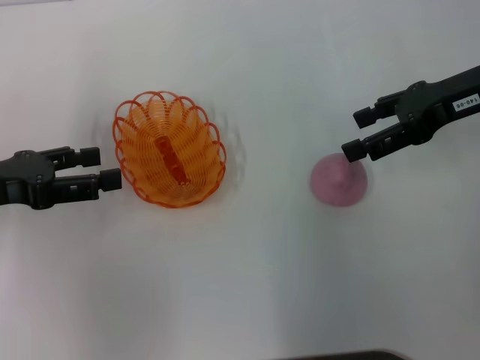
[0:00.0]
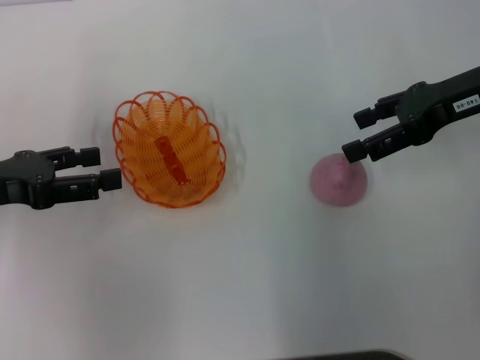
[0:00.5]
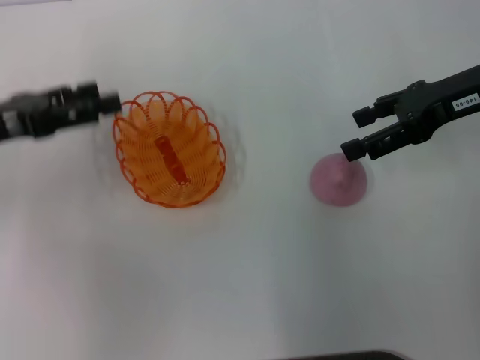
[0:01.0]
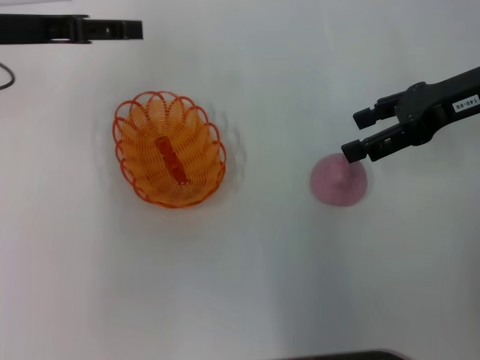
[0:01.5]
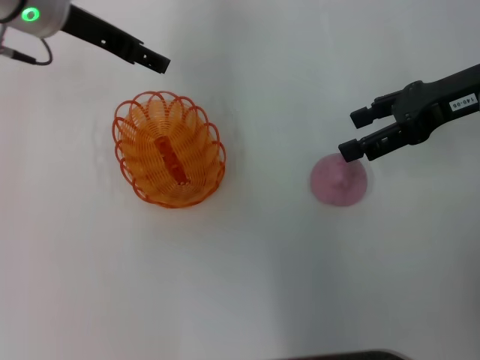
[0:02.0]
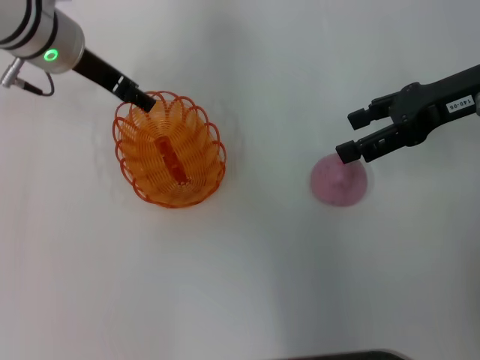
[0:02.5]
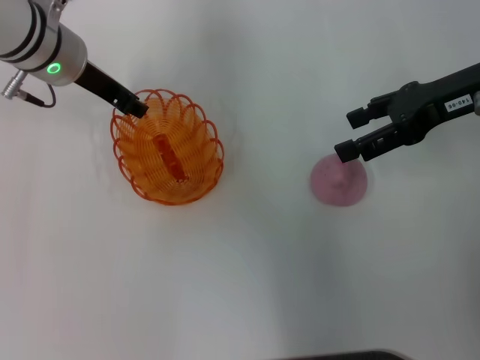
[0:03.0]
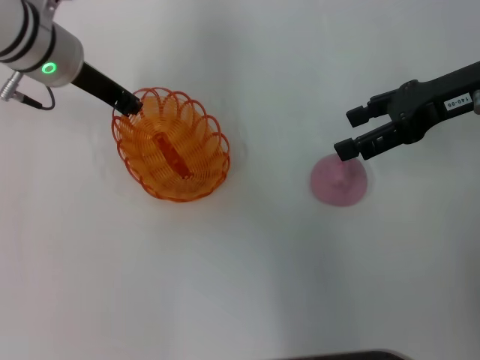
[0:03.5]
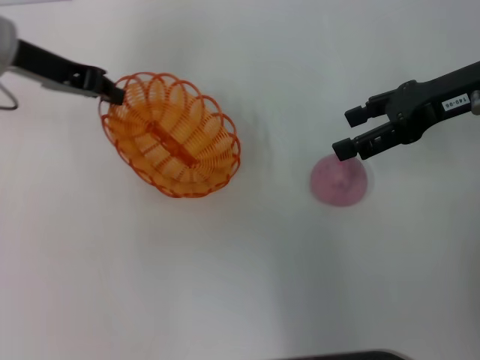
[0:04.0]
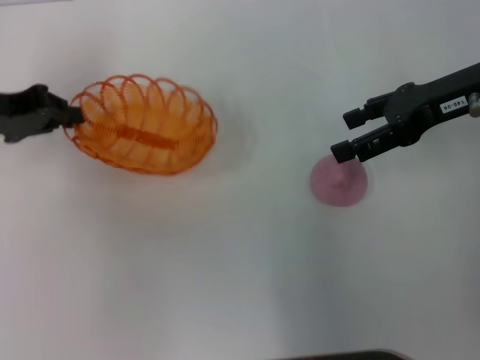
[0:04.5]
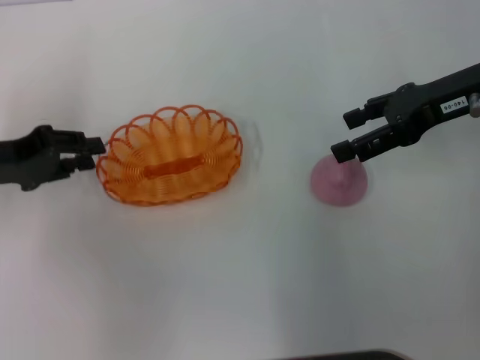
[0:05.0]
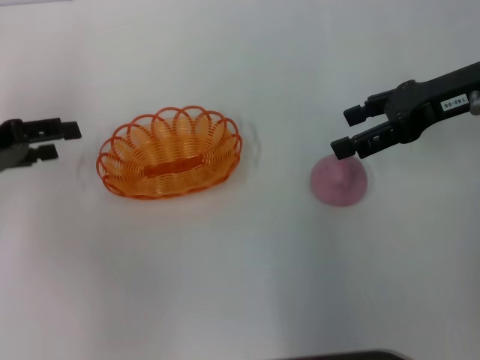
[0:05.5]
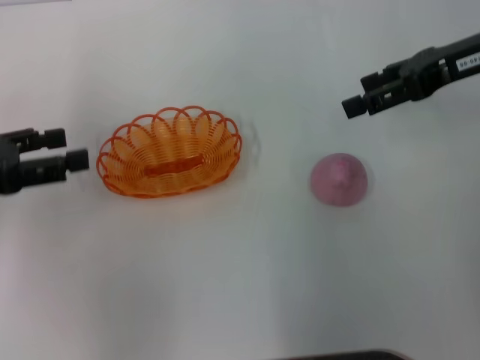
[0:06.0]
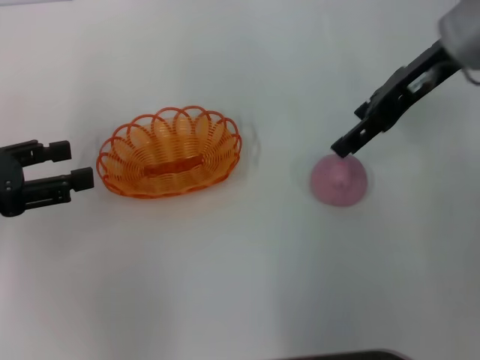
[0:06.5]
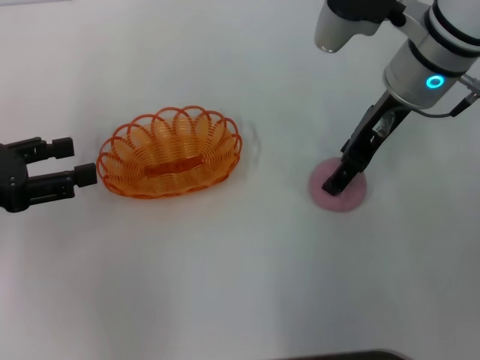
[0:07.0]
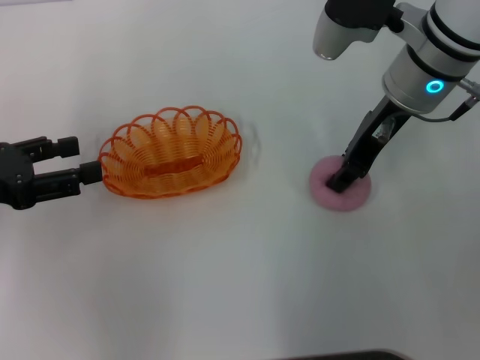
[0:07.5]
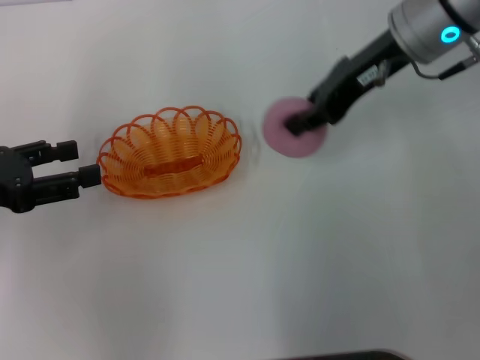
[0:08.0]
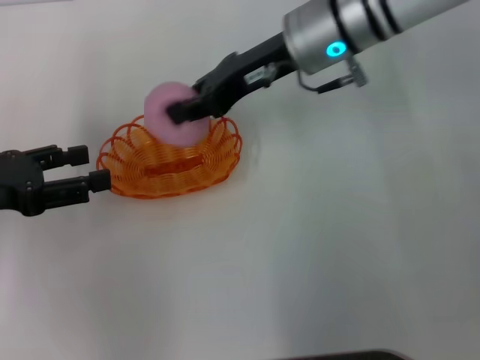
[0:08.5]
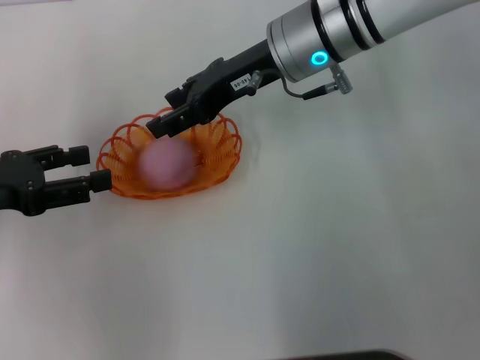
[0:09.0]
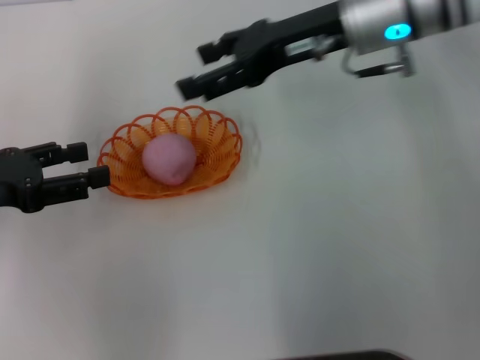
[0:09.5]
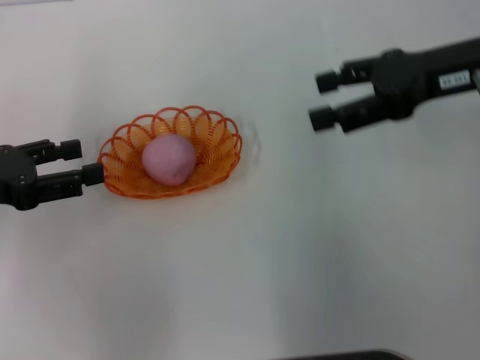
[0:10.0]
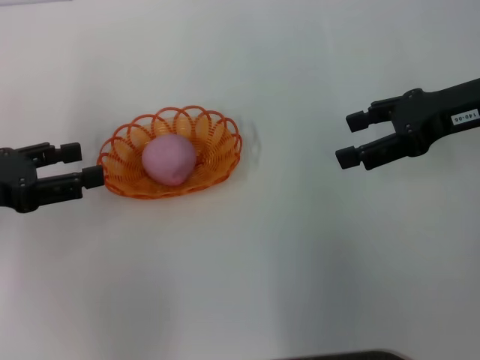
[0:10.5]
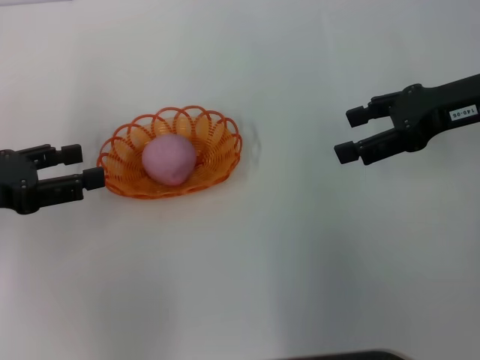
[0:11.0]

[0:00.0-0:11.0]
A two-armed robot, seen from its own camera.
Step, 0:00.0 to 0:03.5: Pick up the basket with the left gripper.
Step, 0:04.0 to 0:05.0: Place the basket in the center of view with the left gripper.
Step, 0:05.5 to 0:07.5: Pick up the peach with the right gripper.
Step, 0:08.5 to 0:09.0: Place the peach into the basket with the right gripper.
0:00.0 to 0:02.0: The left gripper heads forward, to the right and upward, covering some 20 cm.
0:02.0 to 0:03.5: The left gripper goes roughly 5 cm downward, and closes.
0:03.5 to 0:05.5: The left gripper moves to the left and backward, about 20 cm, and opens its fingers.
0:05.5 to 0:07.5: The left gripper goes some 5 cm backward. Meanwhile the right gripper moves to the left, roughly 10 cm, and closes its fingers.
0:07.5 to 0:09.0: The right gripper is displaced to the left by about 10 cm, and closes and opens again.
0:09.0 to 0:11.0: The right gripper heads to the right, covering some 20 cm, and opens its fingers.

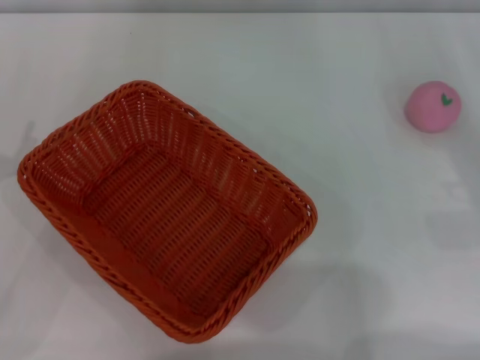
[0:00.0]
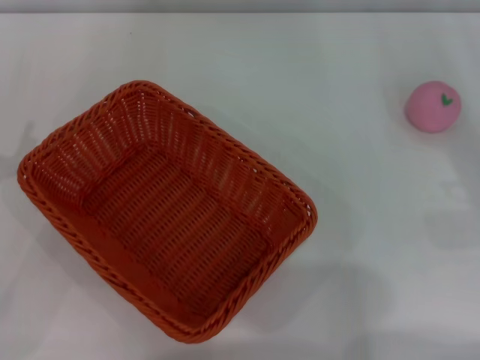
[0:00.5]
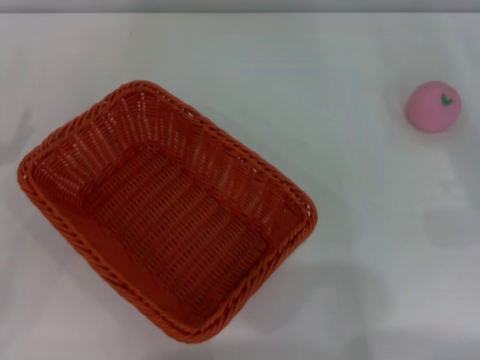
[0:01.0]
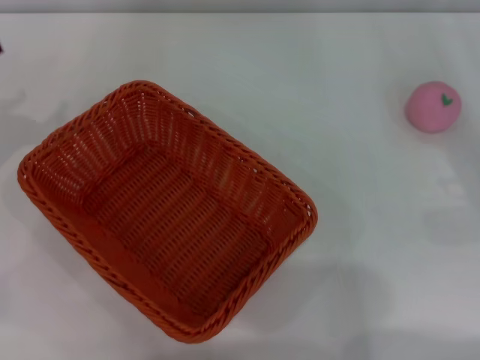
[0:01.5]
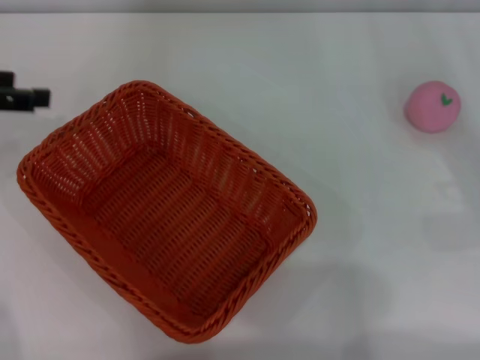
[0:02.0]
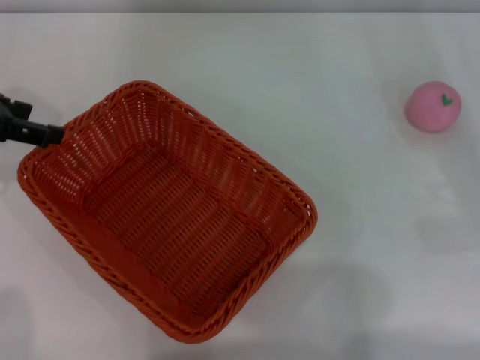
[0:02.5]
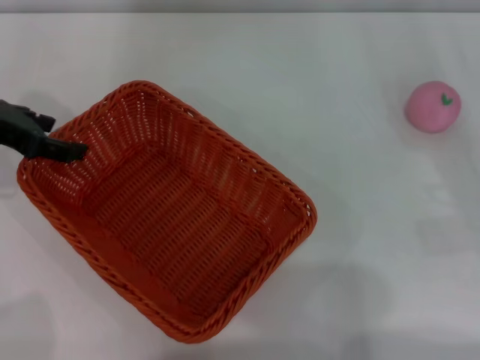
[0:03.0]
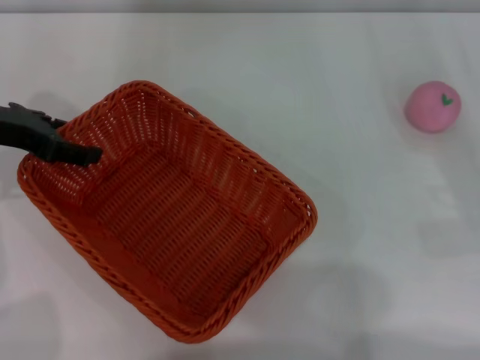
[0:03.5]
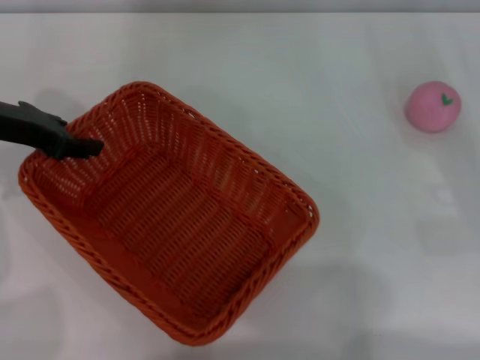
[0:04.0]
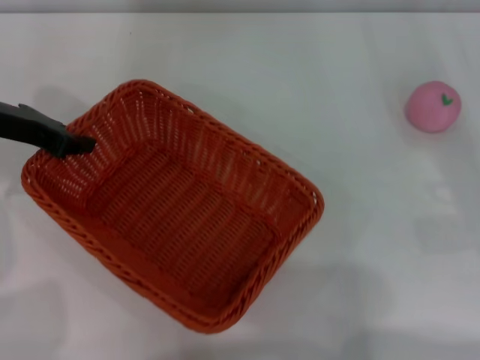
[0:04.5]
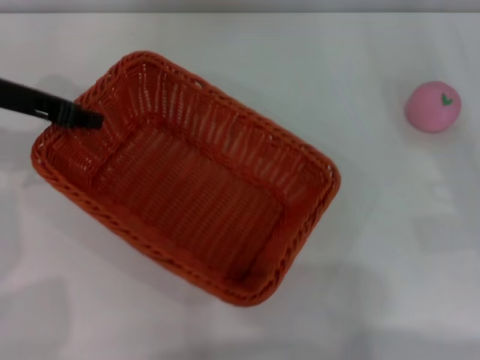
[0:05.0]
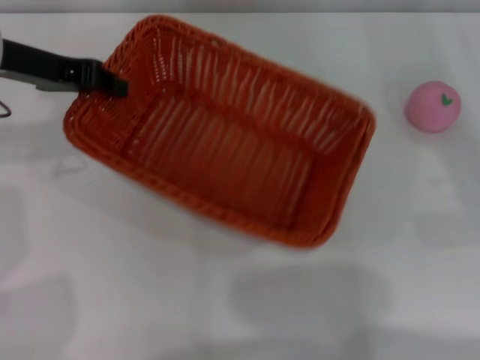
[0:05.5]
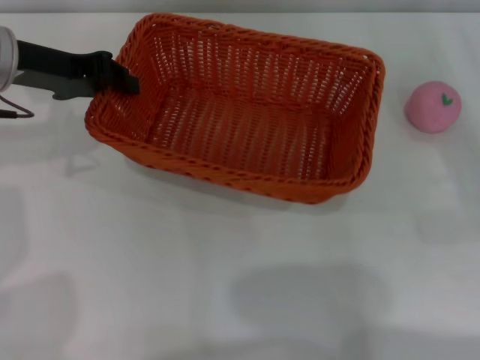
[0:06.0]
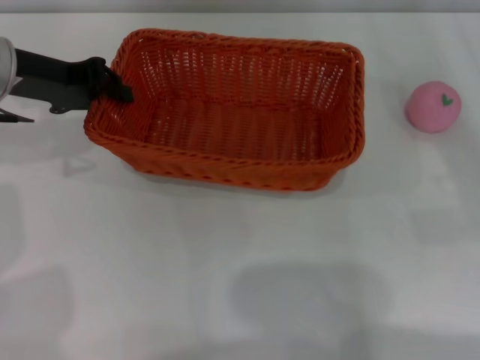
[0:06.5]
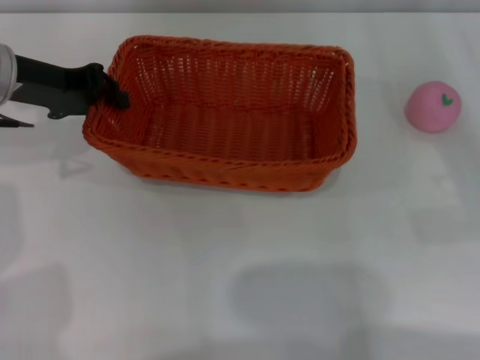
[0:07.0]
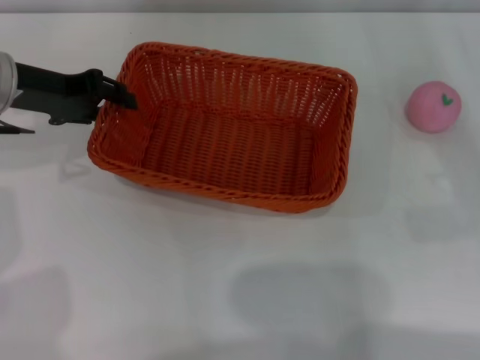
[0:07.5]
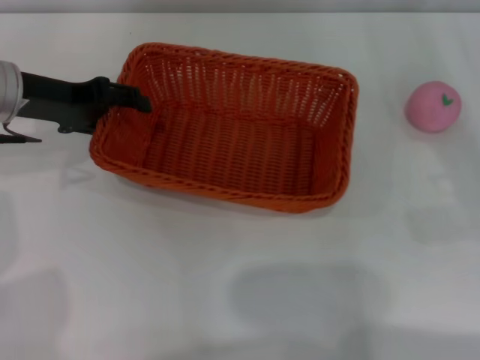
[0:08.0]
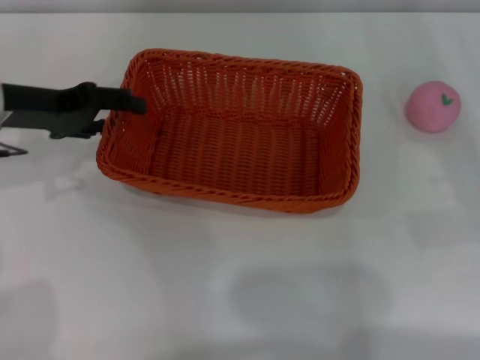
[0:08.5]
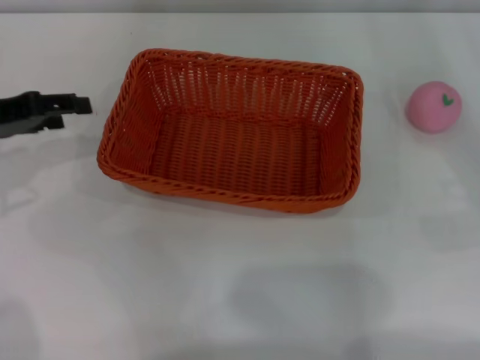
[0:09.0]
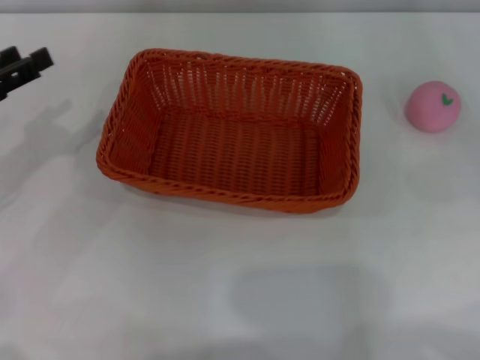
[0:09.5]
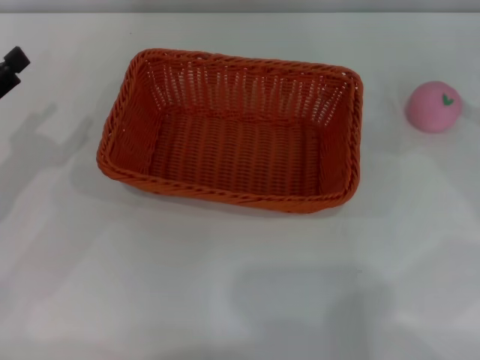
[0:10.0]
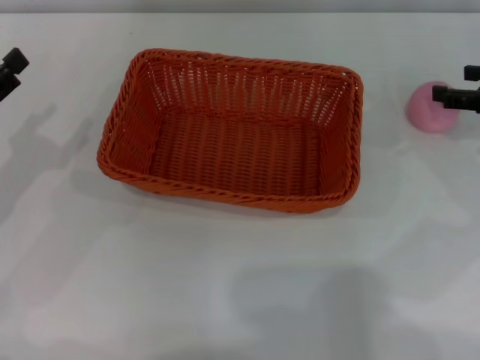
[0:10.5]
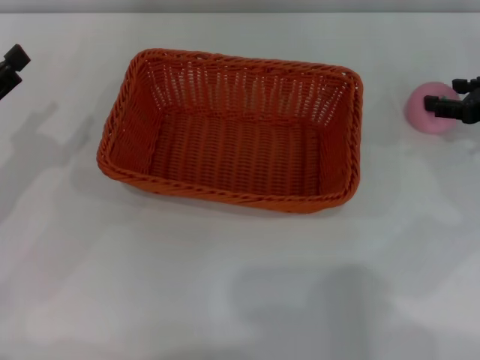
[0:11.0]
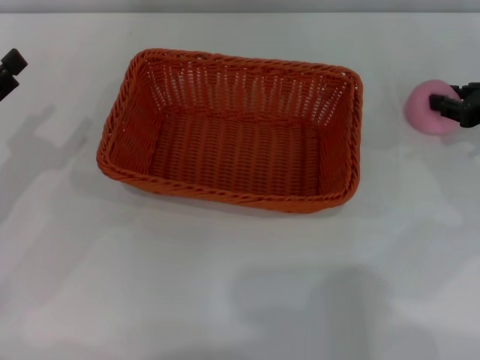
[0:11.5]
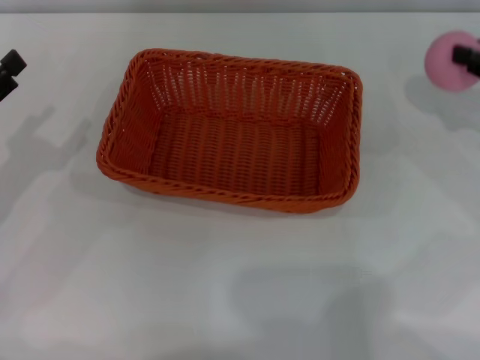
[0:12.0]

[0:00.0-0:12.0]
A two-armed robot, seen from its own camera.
Step, 0:00.0 to 0:05.0: Pick up the light basket with the left gripper.
Step, 0:05.5 to 0:08.5: Place the light basket in the center of view with the right gripper.
0:00.0 to 0:02.0: The left gripper heads upward and forward, covering approximately 15 cm.
0:02.0 to 0:04.0: The left gripper shifts some 5 cm to the right, and closes up.
0:04.0 to 0:06.0: The left gripper changes place by some 5 cm, and closes.
0:06.0 to 0:08.0: The left gripper opens its fingers.
0:08.0 to 0:10.0: The right gripper heads upward and forward, covering roughly 10 cm; the left gripper travels backward and to the left by roughly 15 cm.
0:10.0 to 0:12.0: The right gripper closes up.

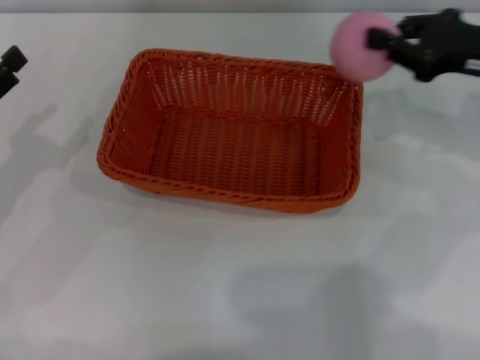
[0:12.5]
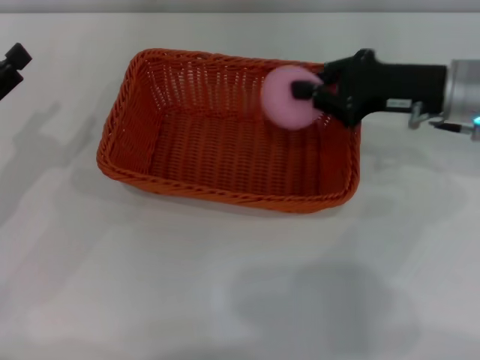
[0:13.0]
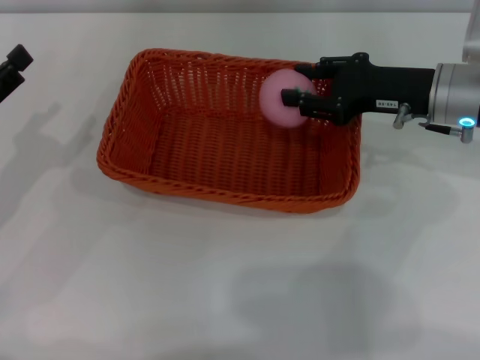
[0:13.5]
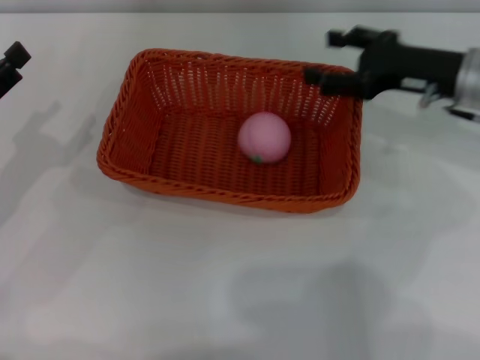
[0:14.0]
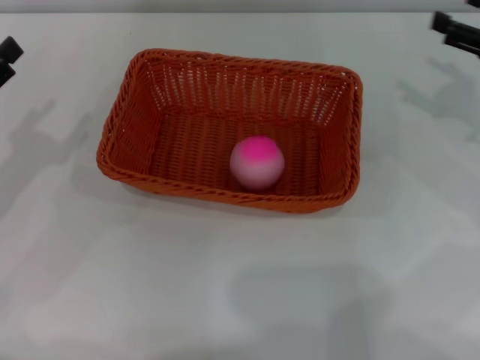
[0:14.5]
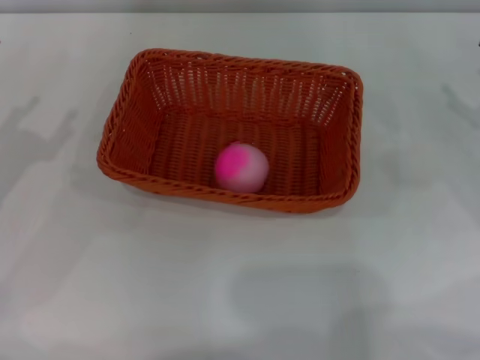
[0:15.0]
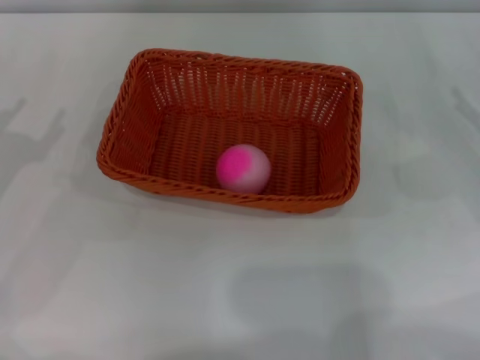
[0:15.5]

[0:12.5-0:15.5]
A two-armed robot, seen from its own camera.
0:12.5 to 0:14.0: The right gripper opens.
0:14.0 to 0:15.5: The right gripper goes approximately 15 cm to the right and backward.
